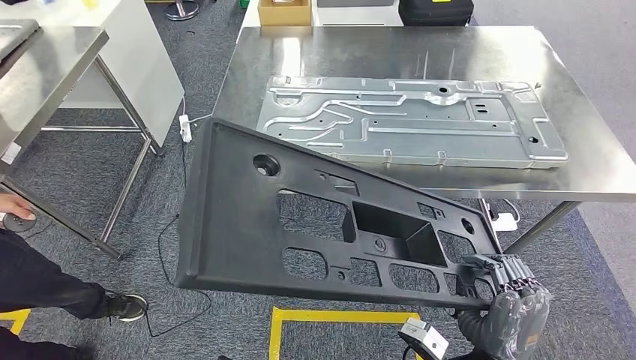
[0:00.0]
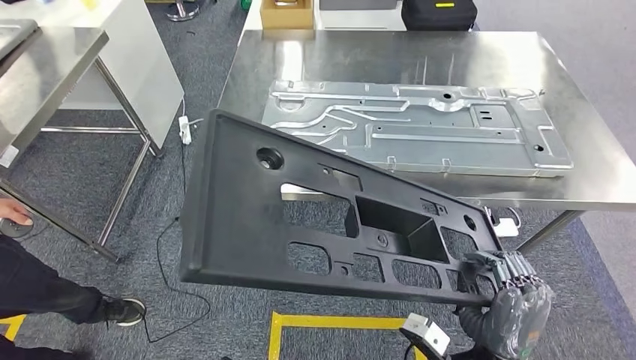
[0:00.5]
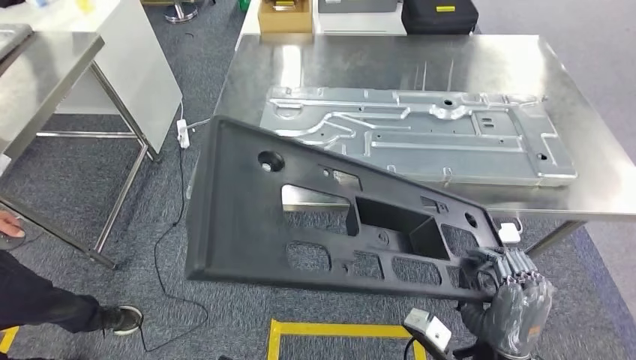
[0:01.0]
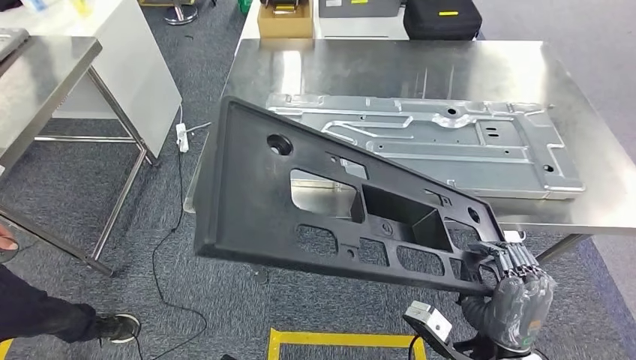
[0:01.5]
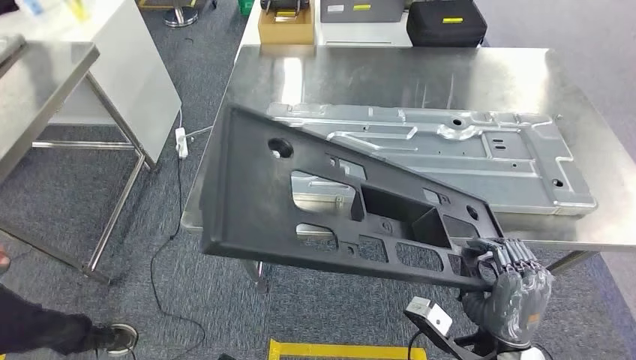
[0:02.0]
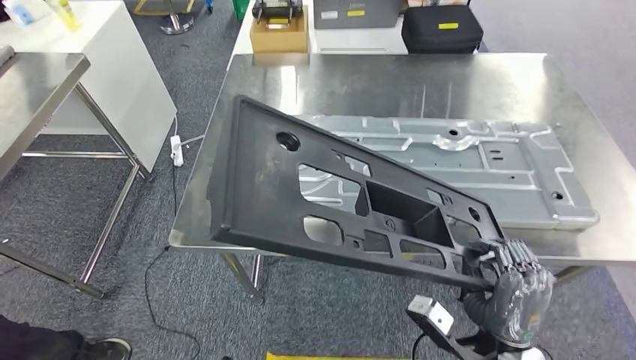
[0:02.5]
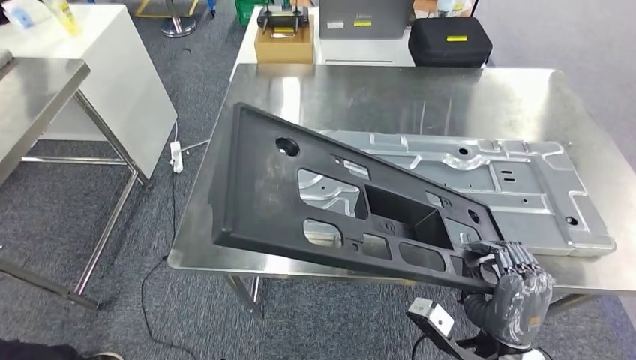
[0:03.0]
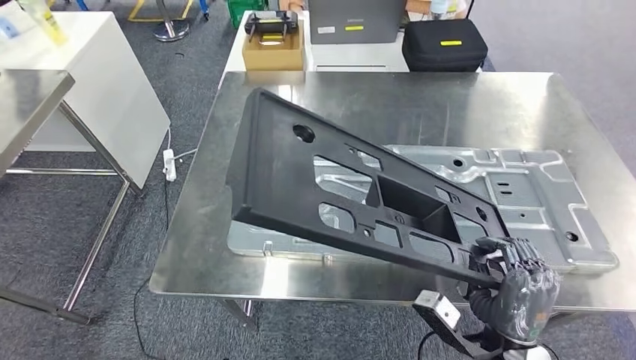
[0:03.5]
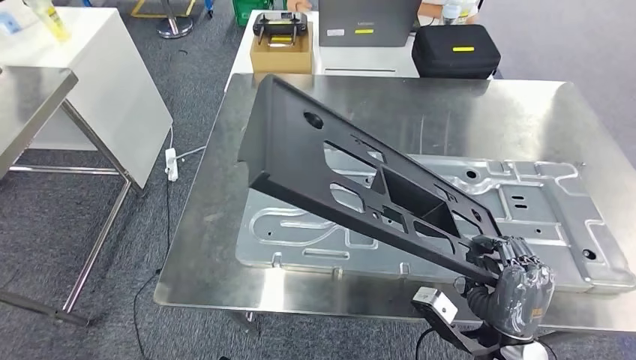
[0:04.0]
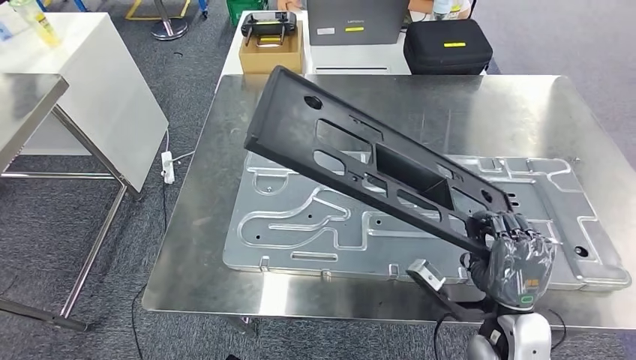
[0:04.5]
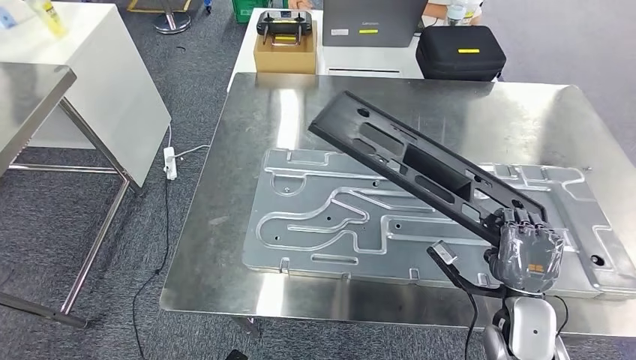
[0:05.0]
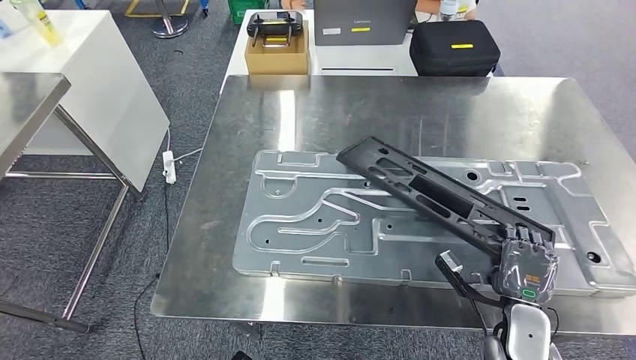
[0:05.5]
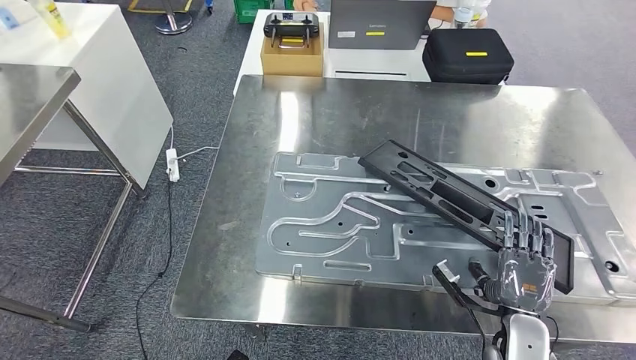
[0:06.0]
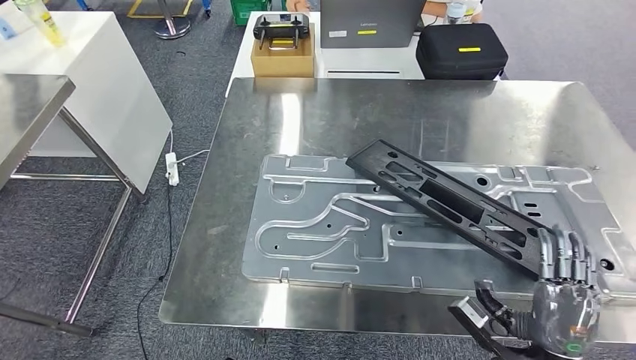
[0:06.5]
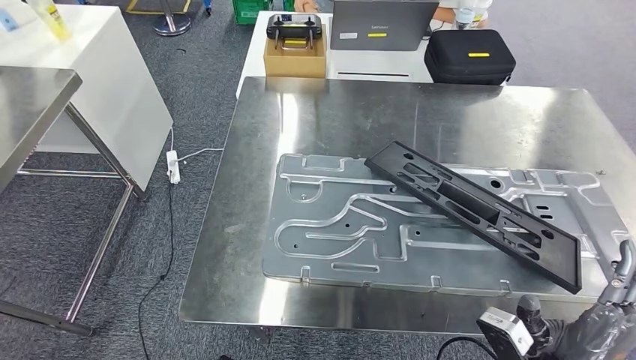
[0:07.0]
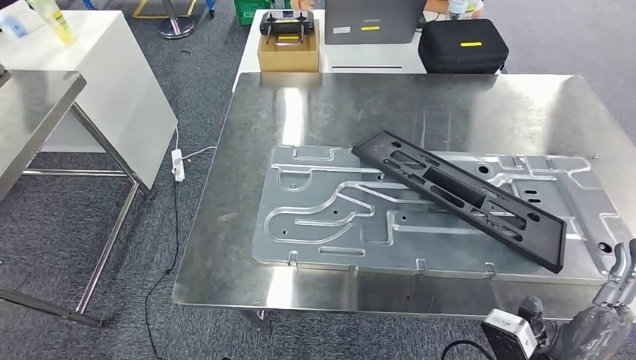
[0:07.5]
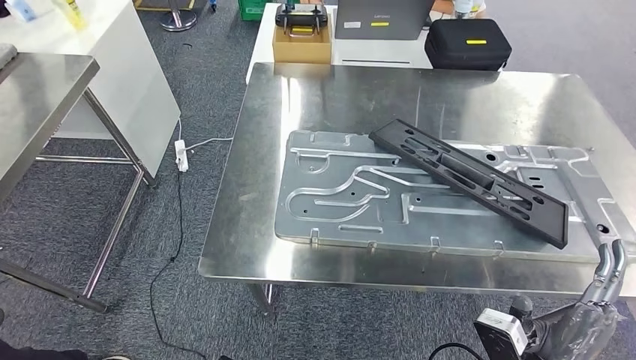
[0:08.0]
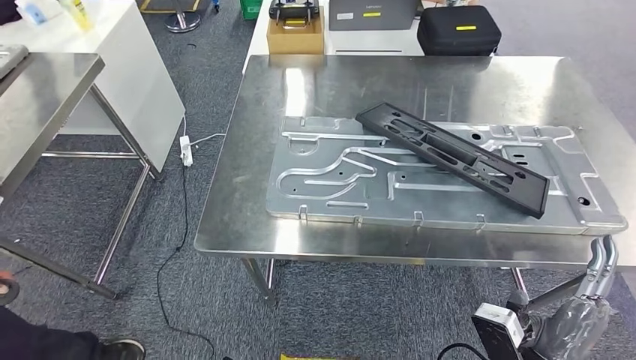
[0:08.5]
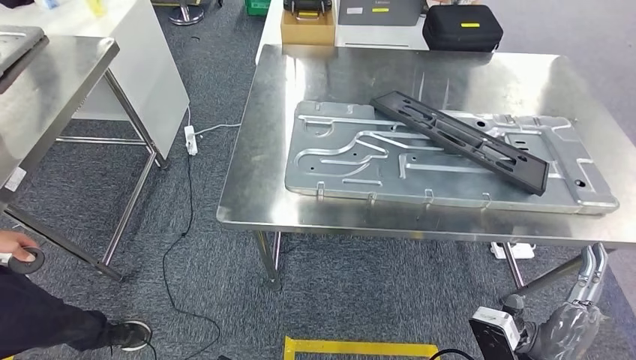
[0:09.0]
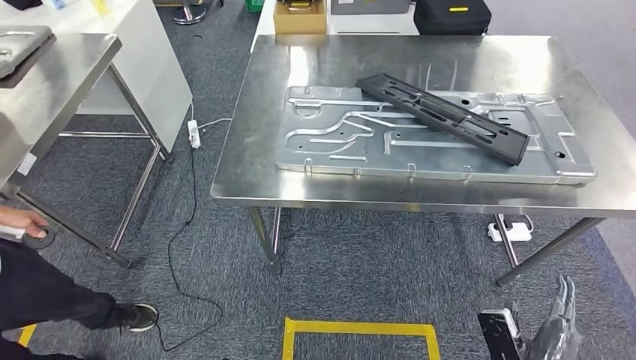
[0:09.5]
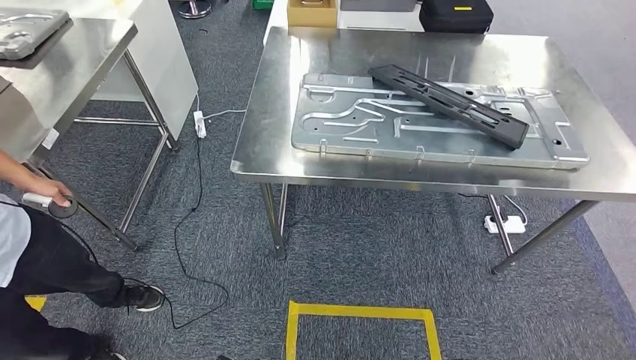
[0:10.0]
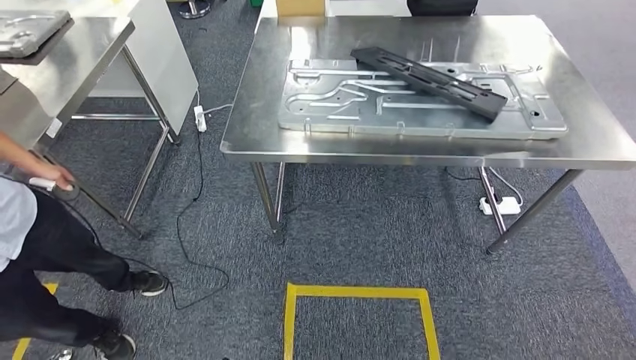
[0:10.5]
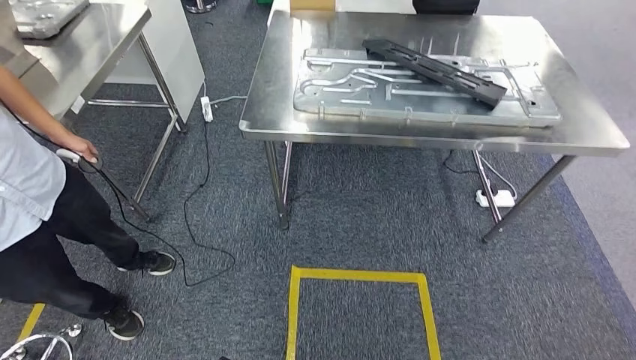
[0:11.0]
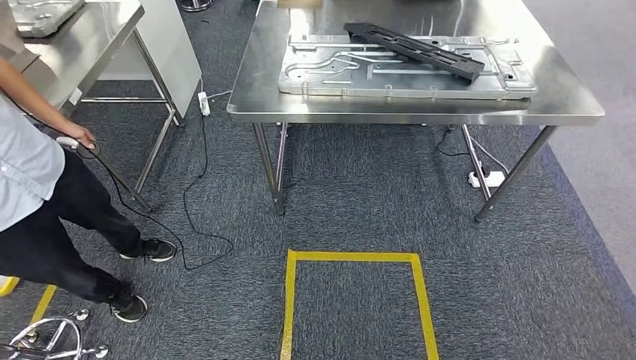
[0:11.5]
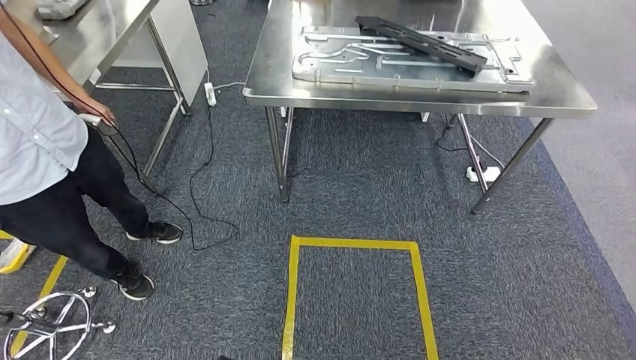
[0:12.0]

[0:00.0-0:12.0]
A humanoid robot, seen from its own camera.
Step, 0:00.0 to 0:09.0: Insert the large material into the corresponding slot on the workbench.

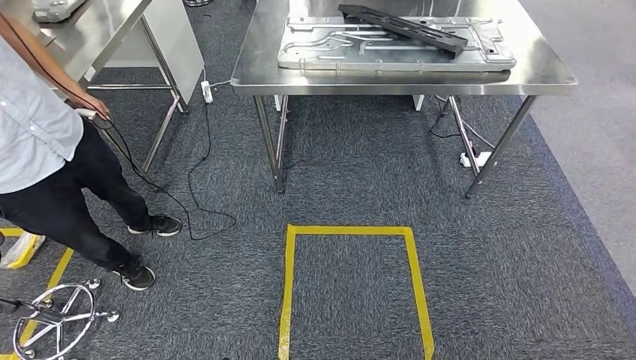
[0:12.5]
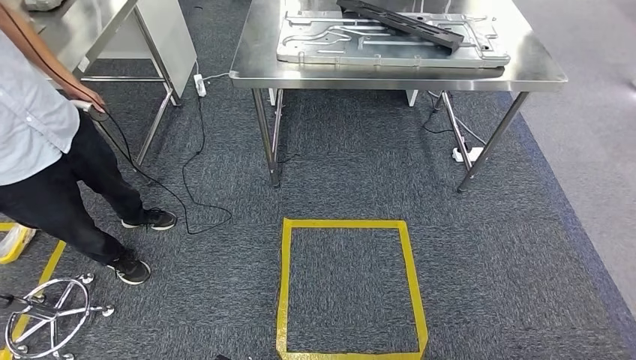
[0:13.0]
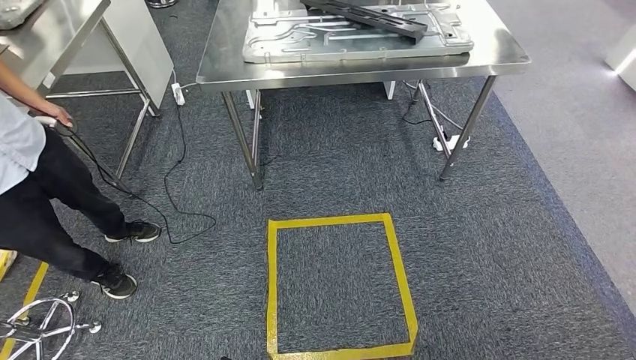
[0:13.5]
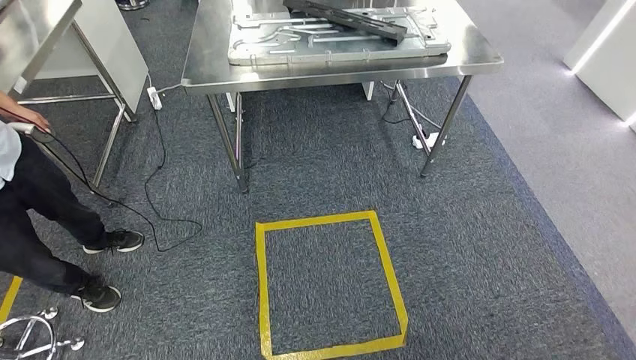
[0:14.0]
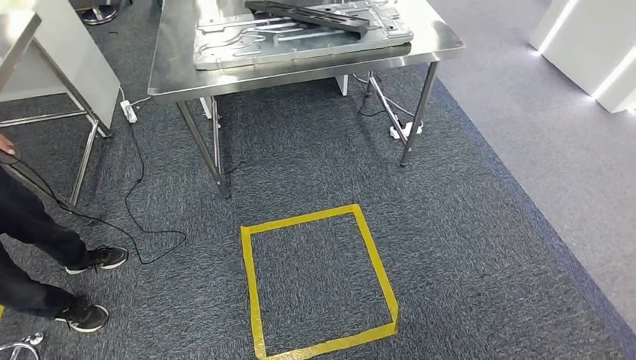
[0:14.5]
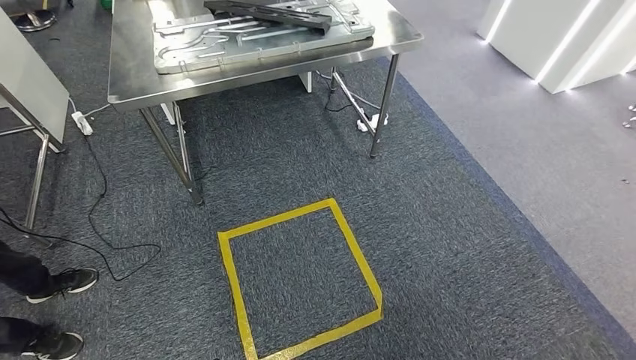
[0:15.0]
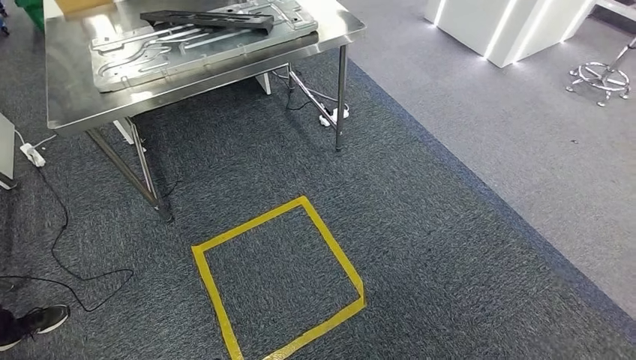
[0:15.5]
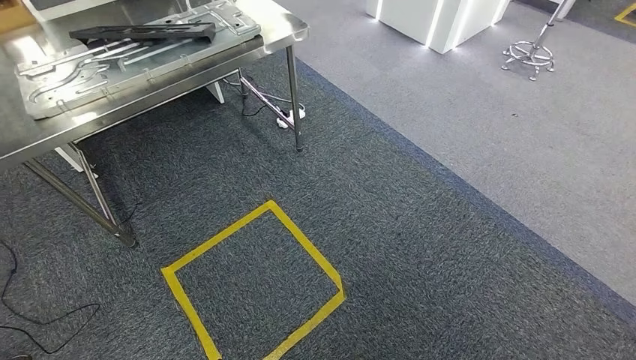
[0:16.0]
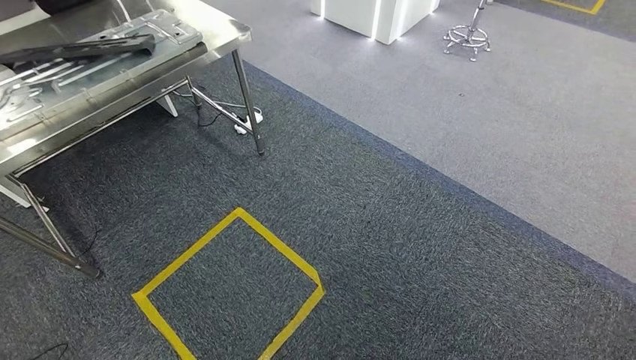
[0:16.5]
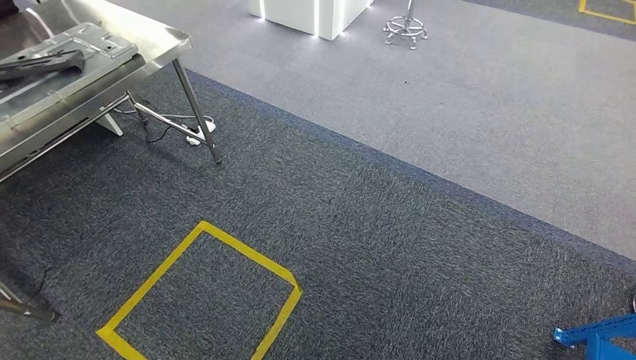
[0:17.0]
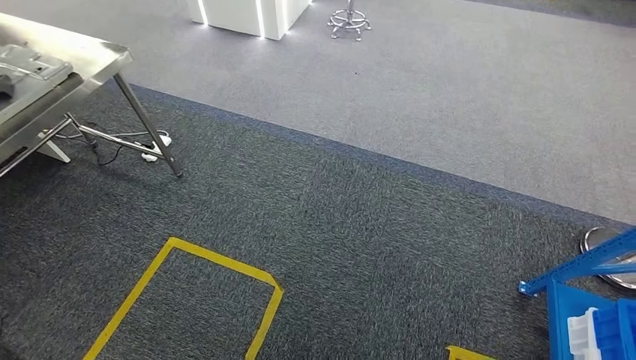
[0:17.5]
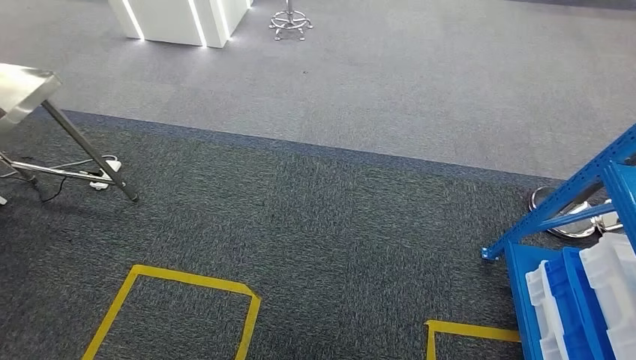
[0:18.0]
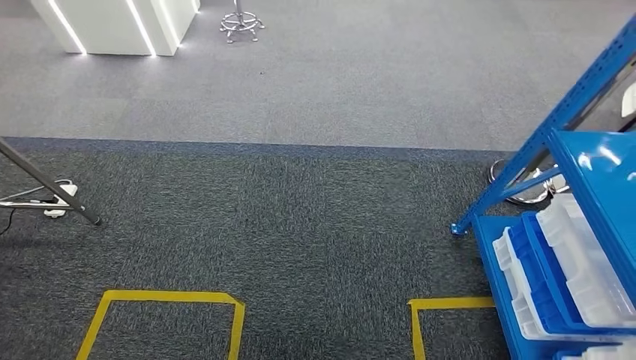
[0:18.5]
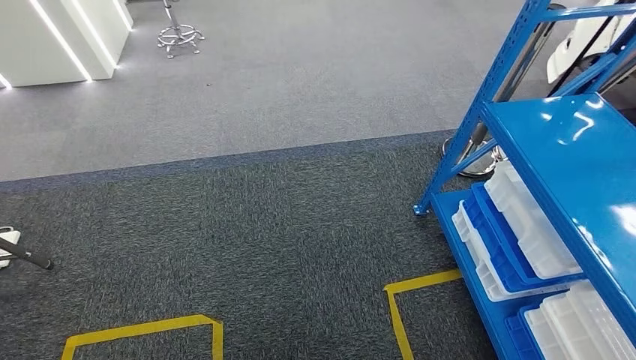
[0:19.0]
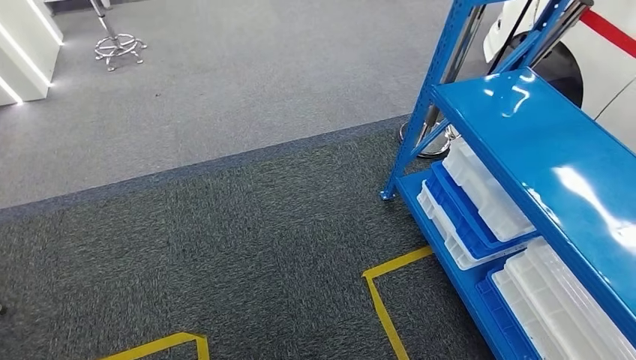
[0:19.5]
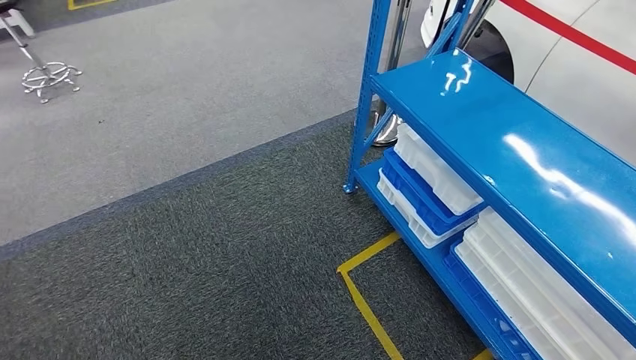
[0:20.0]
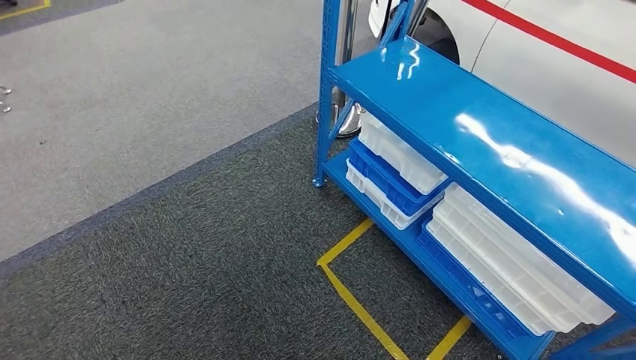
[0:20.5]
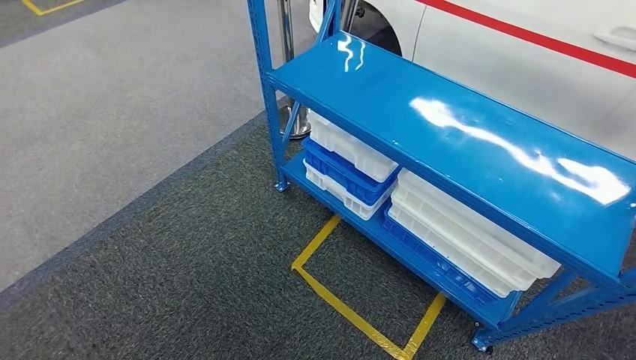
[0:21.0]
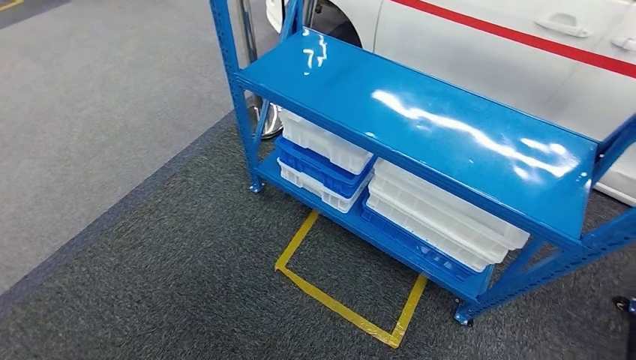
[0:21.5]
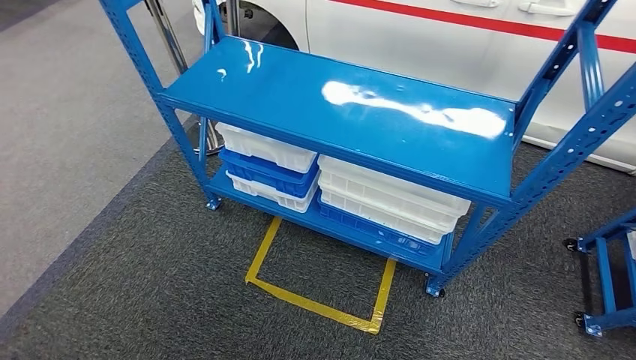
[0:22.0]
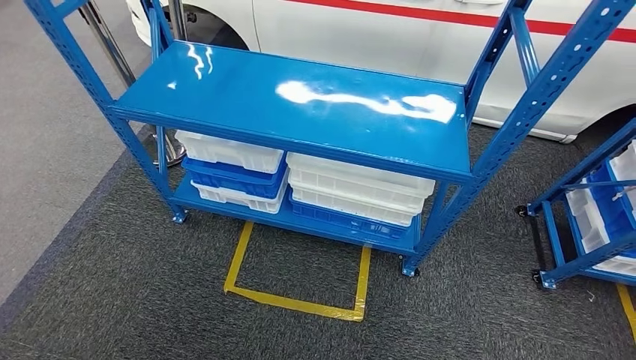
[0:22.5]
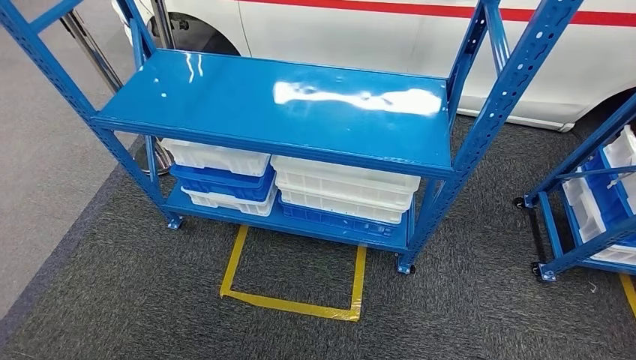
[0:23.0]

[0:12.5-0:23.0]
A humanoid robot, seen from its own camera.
Step, 0:12.5 to 0:23.0: Move to the initial position of the shelf.
